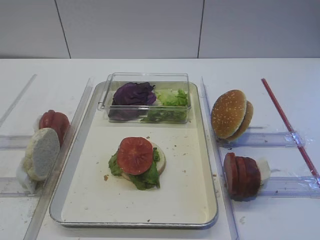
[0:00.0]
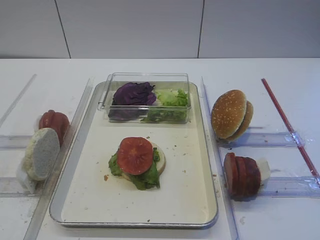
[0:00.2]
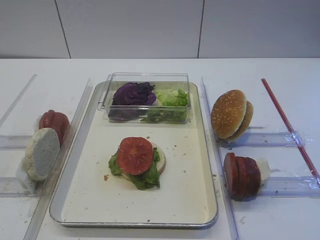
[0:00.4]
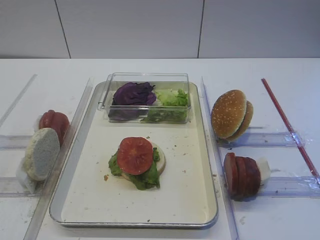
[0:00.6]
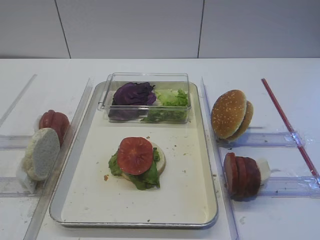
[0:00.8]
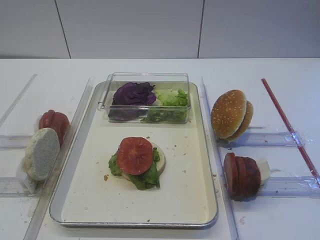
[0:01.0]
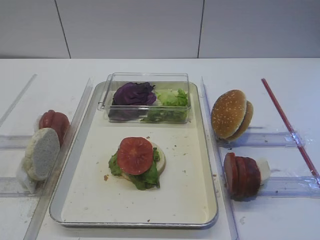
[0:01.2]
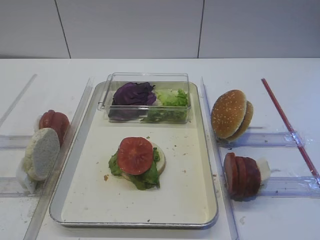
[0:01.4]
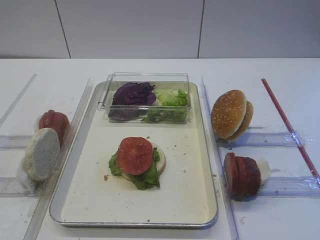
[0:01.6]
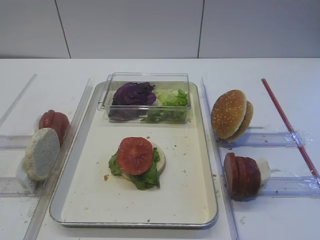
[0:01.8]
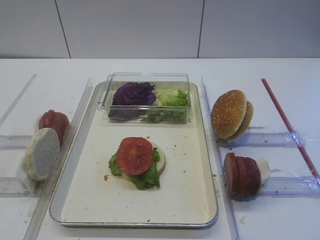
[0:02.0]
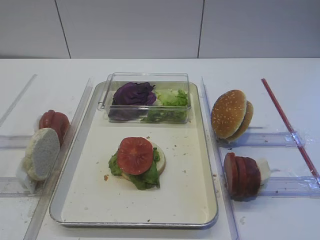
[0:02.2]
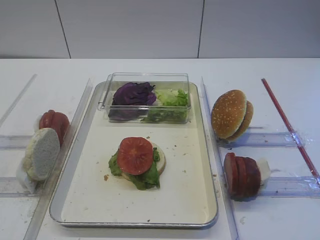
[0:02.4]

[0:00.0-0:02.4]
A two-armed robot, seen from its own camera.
0:00.0 to 0:02.4: Both grippers stay about where they are.

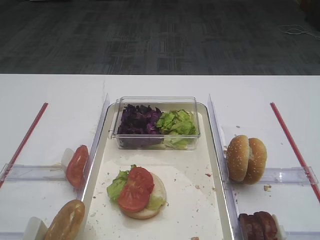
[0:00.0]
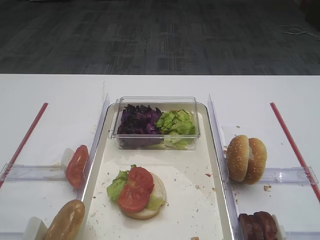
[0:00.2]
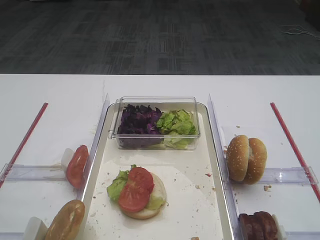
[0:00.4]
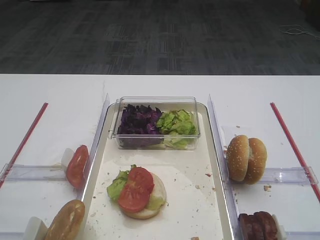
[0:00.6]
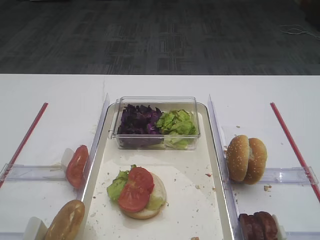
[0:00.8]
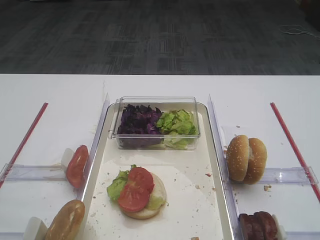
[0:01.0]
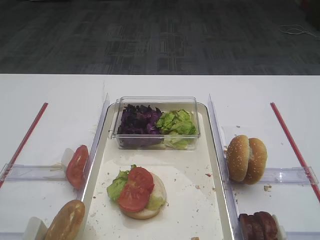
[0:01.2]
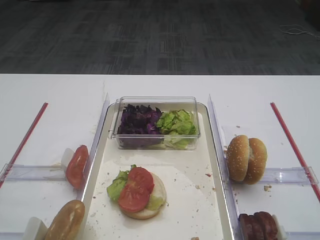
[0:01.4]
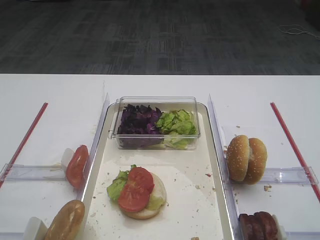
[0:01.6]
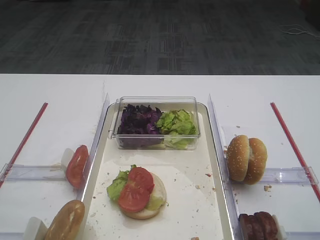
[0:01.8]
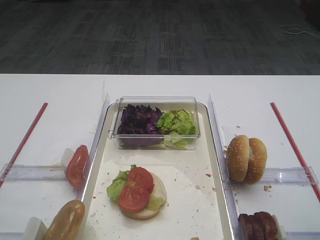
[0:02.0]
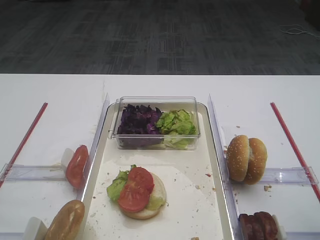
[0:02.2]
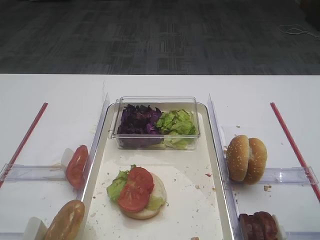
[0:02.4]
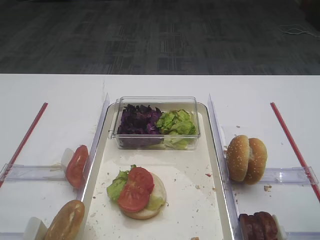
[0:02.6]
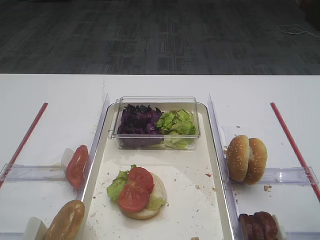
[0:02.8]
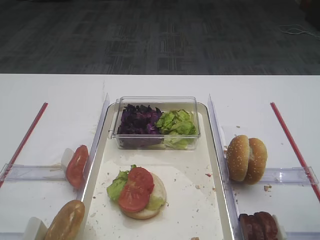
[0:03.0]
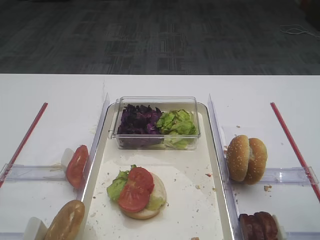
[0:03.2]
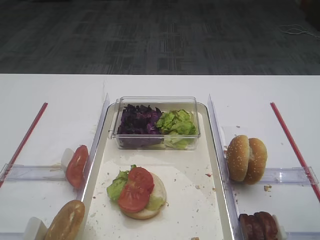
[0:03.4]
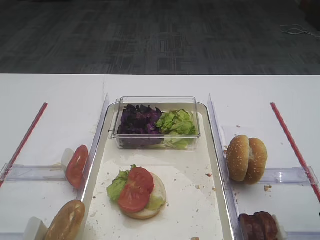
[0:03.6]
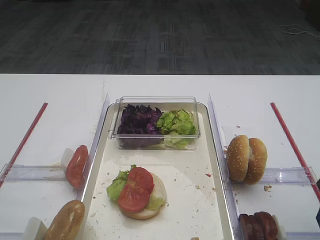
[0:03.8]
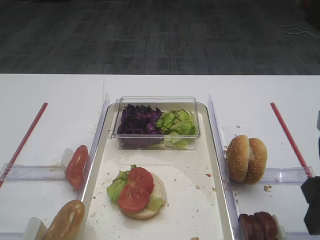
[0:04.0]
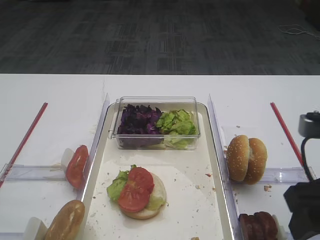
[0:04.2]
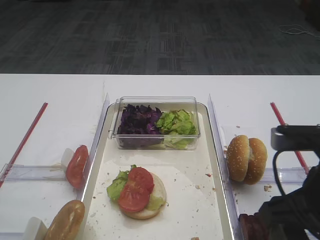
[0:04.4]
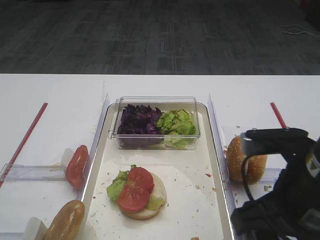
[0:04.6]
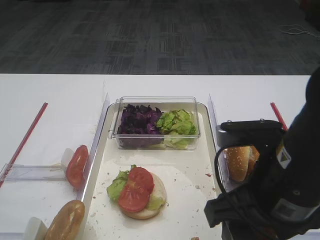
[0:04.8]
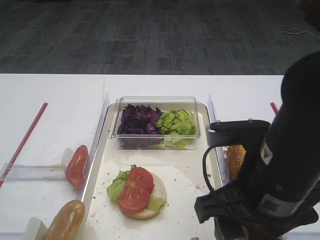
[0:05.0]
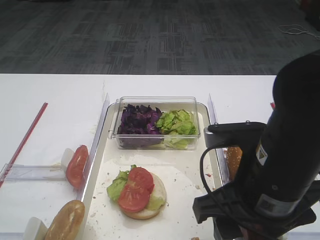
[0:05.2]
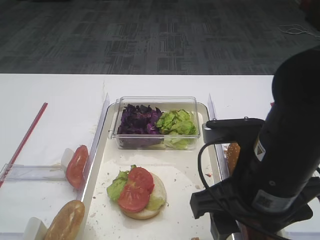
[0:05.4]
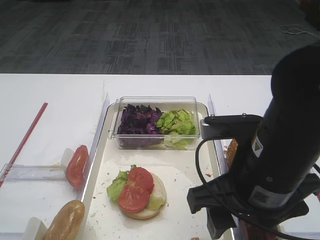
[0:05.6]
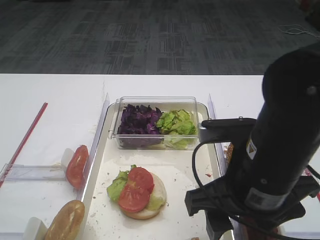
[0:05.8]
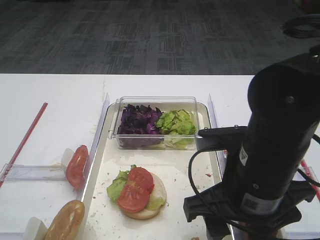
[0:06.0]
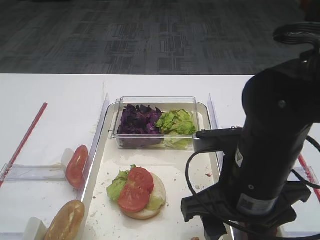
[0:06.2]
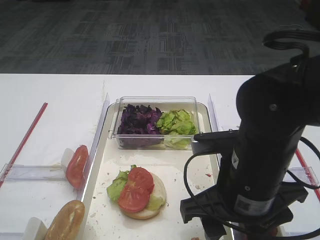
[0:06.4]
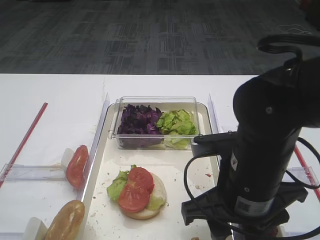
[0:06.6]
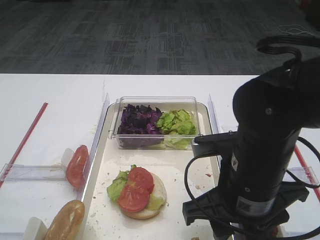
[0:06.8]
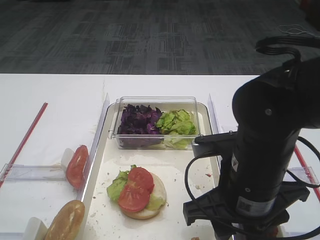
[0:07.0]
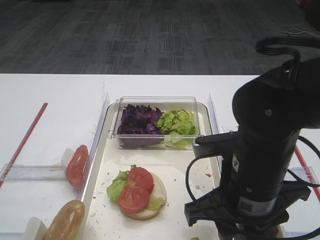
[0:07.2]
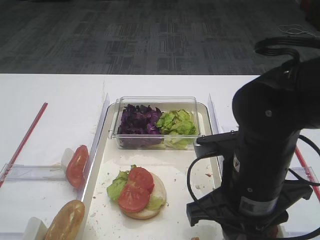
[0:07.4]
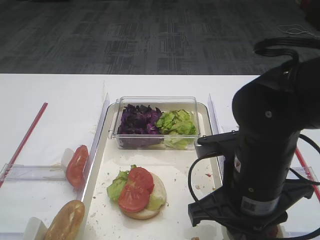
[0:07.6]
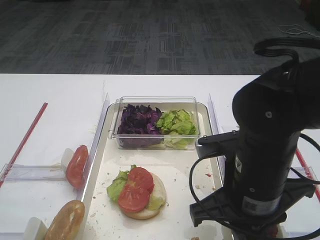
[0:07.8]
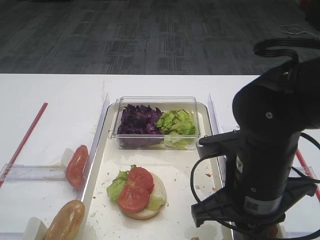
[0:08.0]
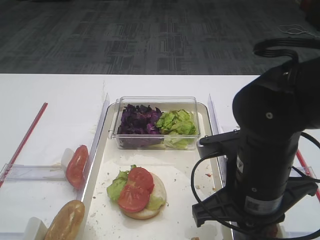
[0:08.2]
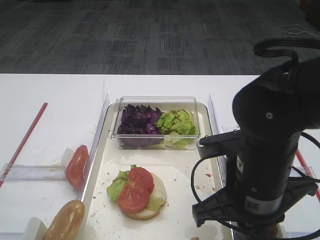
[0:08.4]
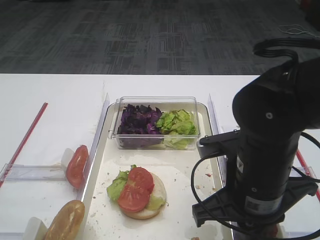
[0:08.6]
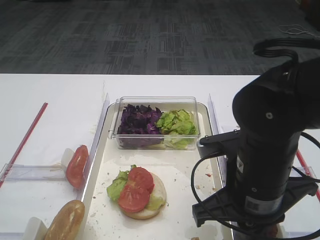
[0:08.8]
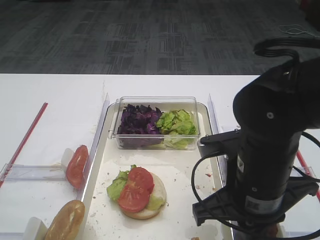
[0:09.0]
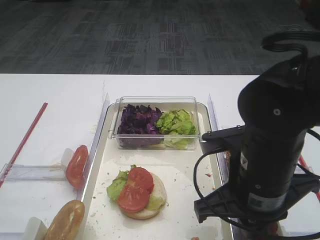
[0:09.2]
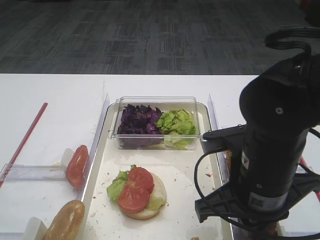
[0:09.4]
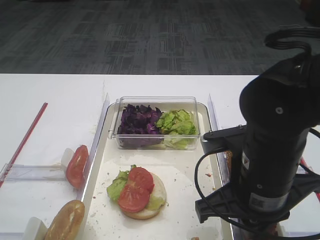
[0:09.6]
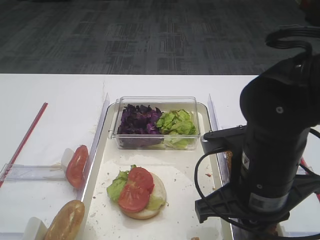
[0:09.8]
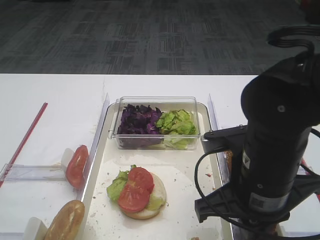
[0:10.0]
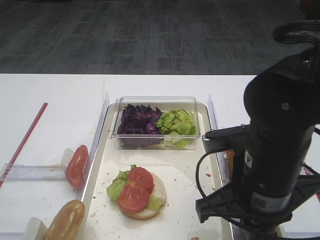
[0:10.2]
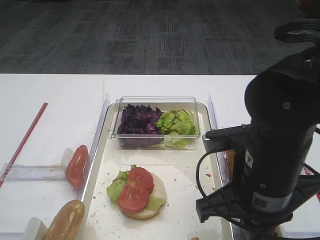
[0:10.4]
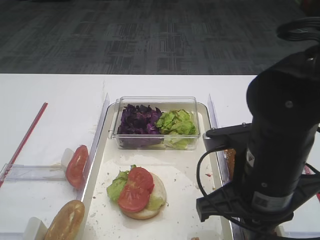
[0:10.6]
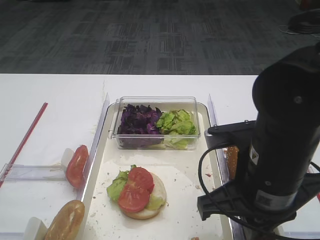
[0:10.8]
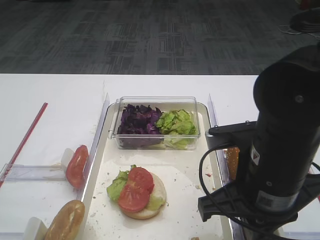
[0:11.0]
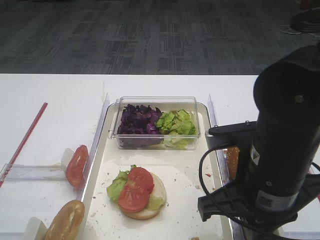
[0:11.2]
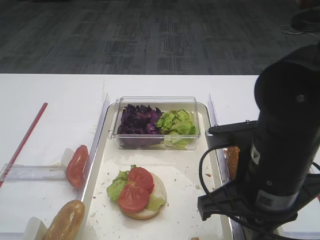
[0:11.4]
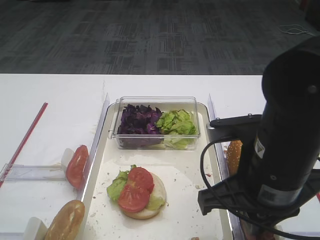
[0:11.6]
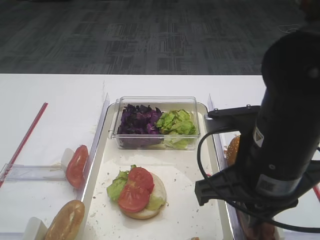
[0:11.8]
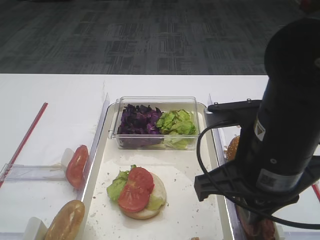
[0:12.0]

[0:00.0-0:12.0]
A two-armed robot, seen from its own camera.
0:03.0 to 0:04.4: The right gripper travels to the left by about 10 cm.
0:04.4 to 0:06.0: The right gripper moves to the left, about 10 cm.
0:06.0 to 0:07.6: The right gripper closes up.
0:07.6 to 0:09.0: The two grippers keep their place.
0:09.0 to 0:12.0: There are only small adjustments of the grippers.

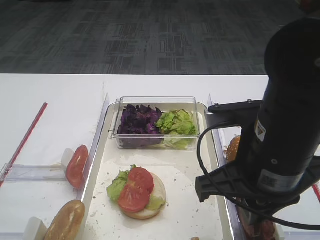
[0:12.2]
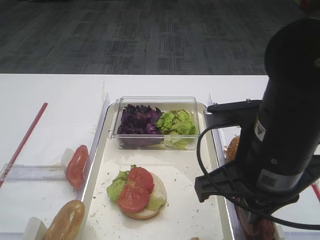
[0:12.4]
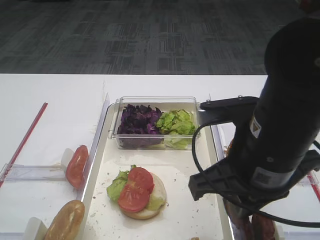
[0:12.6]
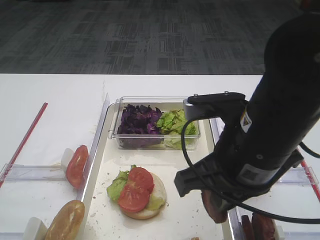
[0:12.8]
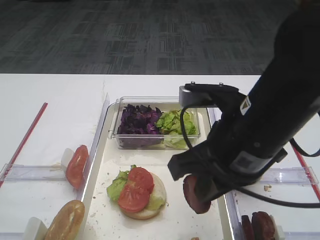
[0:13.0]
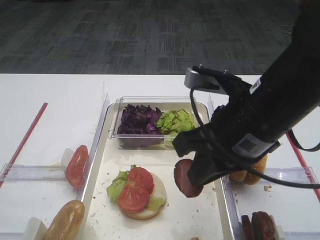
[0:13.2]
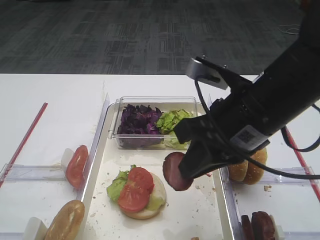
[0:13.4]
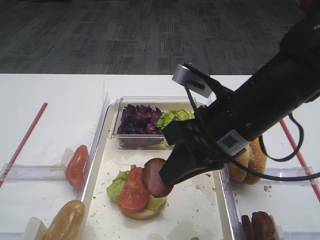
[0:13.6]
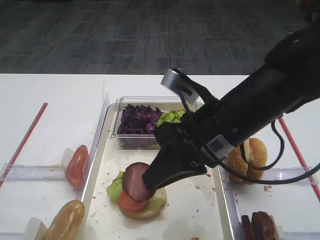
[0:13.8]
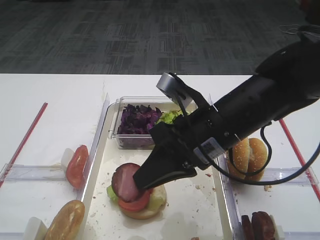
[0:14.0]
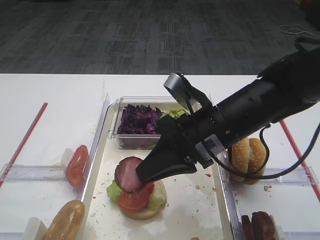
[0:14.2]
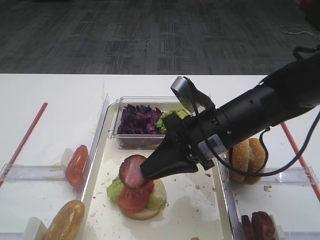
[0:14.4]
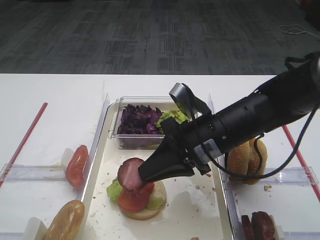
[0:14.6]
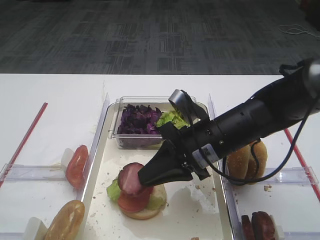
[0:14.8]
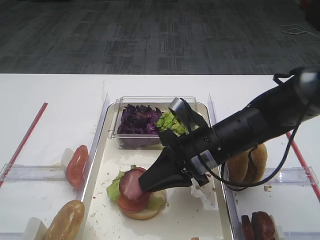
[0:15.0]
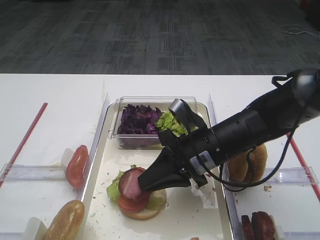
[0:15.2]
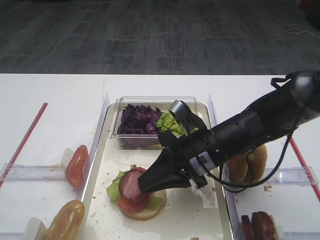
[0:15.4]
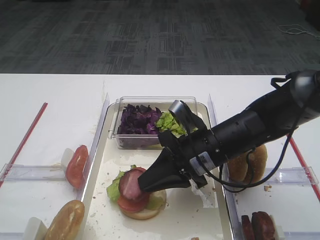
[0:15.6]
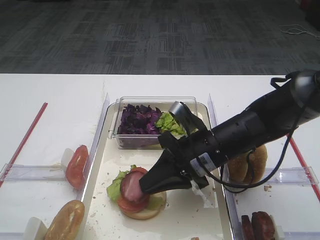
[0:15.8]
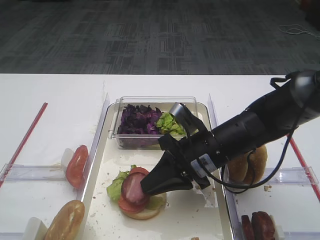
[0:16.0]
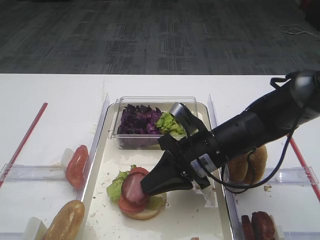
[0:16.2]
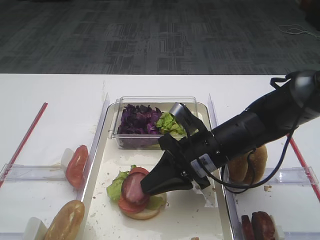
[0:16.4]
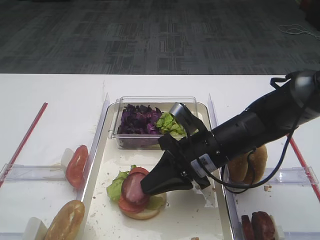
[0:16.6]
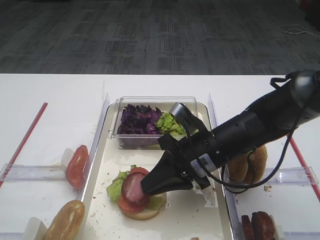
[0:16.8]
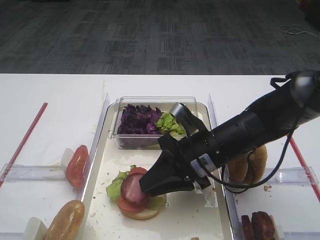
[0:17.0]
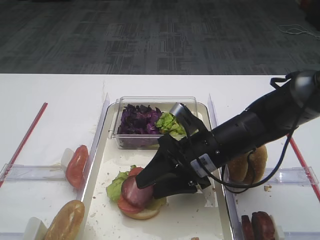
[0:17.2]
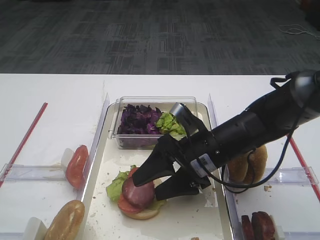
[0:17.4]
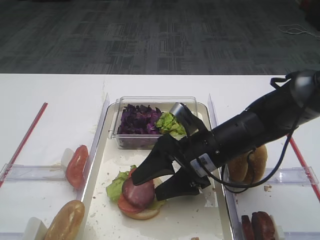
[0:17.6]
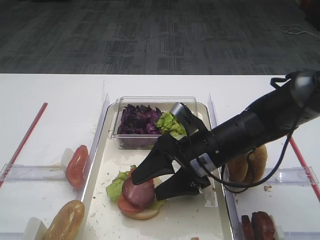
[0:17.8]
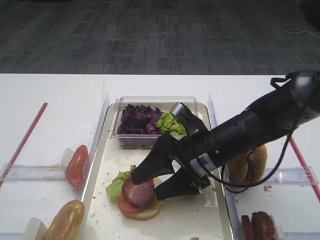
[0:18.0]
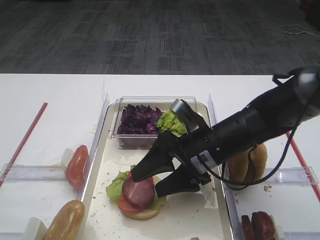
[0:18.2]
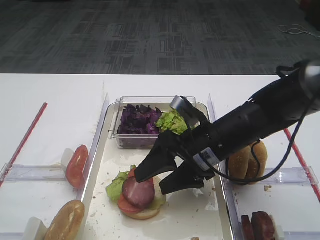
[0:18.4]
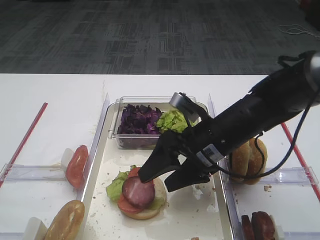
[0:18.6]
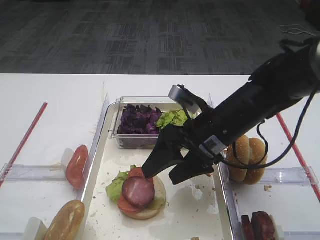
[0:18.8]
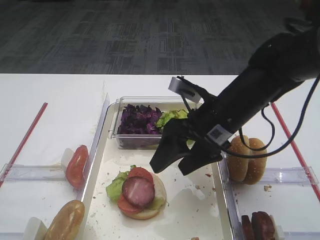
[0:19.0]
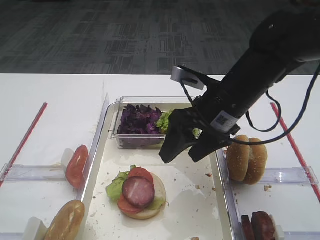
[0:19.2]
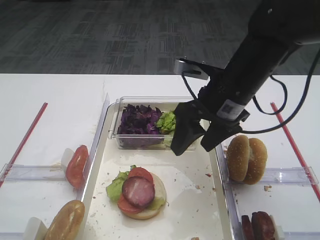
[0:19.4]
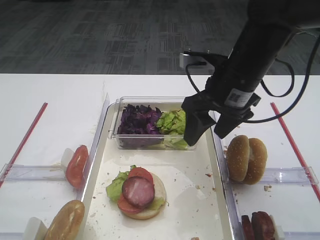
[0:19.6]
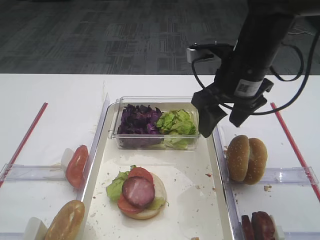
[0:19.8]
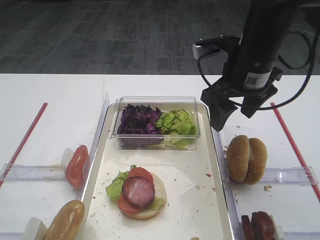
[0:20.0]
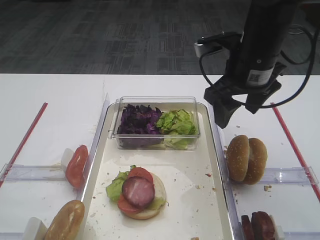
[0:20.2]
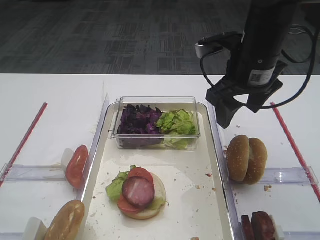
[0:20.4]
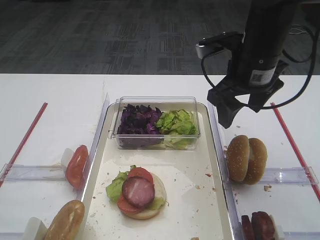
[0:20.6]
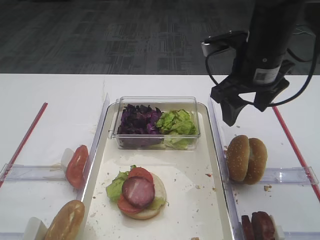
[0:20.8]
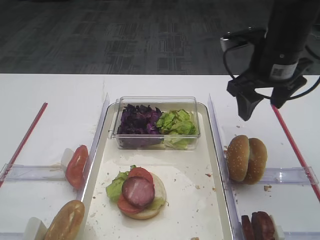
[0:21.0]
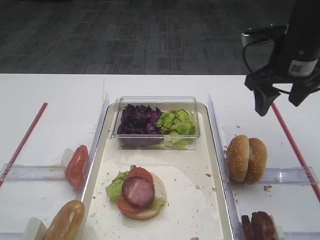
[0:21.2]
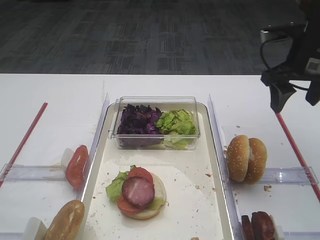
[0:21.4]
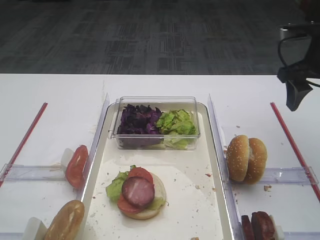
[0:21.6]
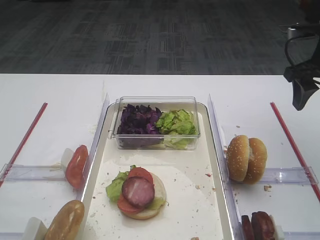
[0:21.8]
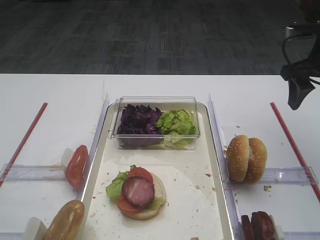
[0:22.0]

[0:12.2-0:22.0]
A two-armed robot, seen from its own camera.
Step, 0:12.6 to 0:17.8: Place the cutlet on the tomato slice with the right gripper.
0:12.2 to 0:13.6: The right gripper shifts about 5 cm forward.
0:13.6 to 0:15.0: The right gripper shifts approximately 10 cm downward.
0:15.0 to 0:16.4: Both grippers stay about where they are.
0:16.4 to 0:17.8: The right gripper opens.
0:17.8 to 0:19.2: The right gripper goes some 10 cm upward.
0:19.2 to 0:20.6: The right gripper ends up some 10 cm from where it was.
0:20.6 to 0:22.0: The right gripper shifts approximately 15 cm to the right.
